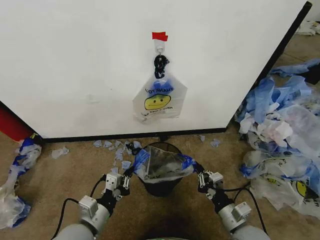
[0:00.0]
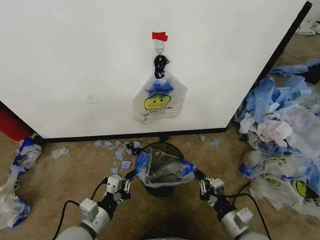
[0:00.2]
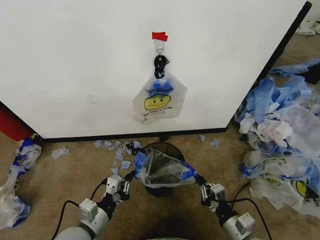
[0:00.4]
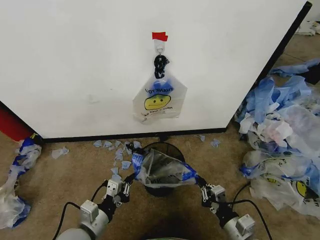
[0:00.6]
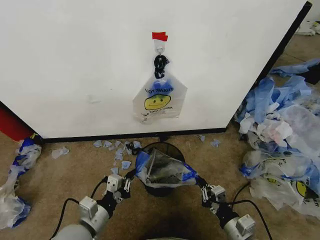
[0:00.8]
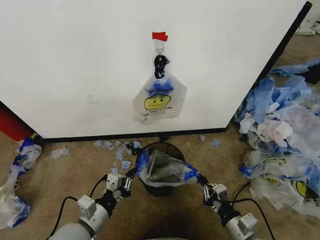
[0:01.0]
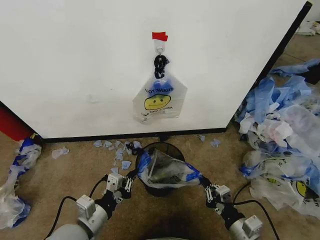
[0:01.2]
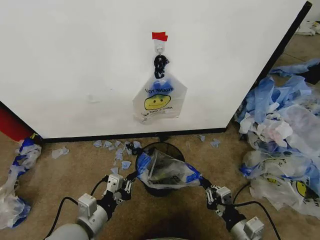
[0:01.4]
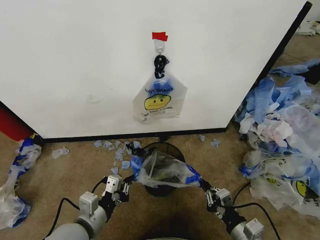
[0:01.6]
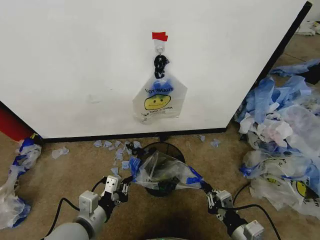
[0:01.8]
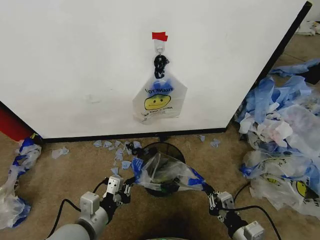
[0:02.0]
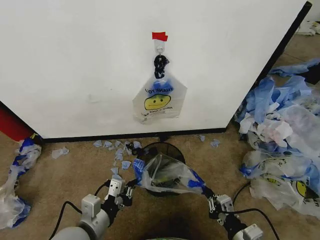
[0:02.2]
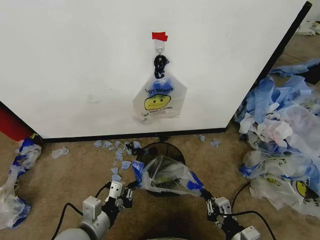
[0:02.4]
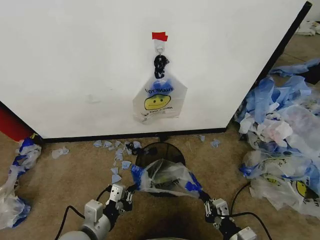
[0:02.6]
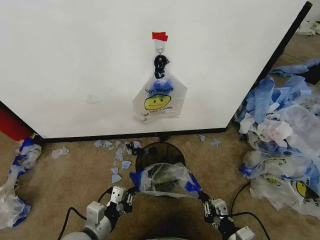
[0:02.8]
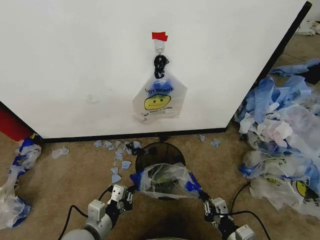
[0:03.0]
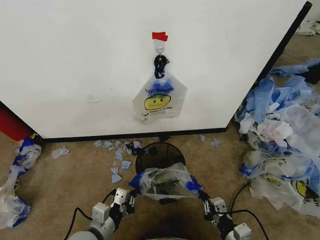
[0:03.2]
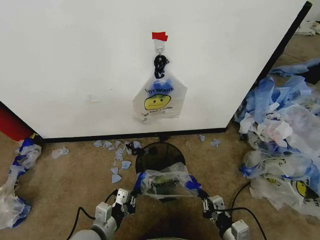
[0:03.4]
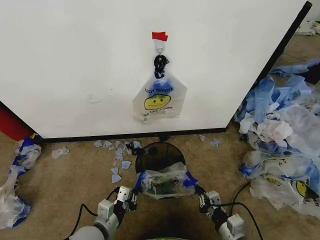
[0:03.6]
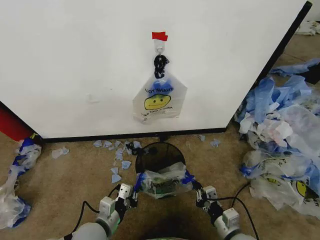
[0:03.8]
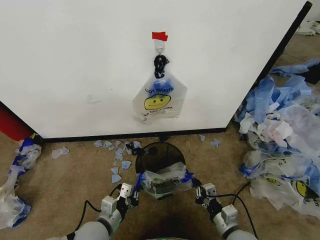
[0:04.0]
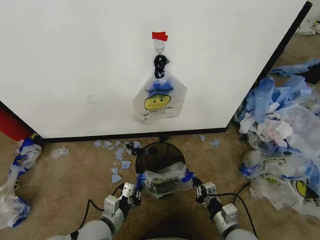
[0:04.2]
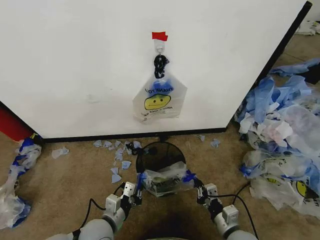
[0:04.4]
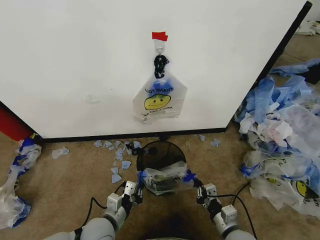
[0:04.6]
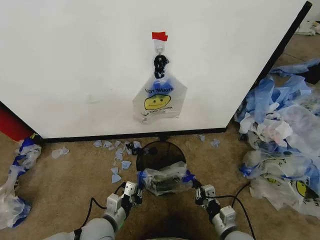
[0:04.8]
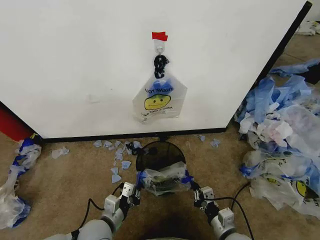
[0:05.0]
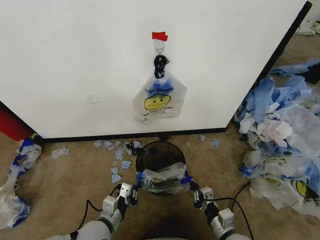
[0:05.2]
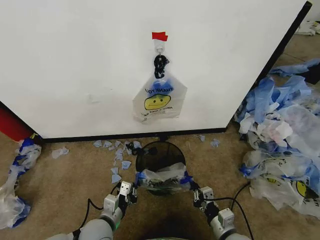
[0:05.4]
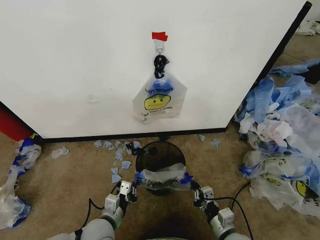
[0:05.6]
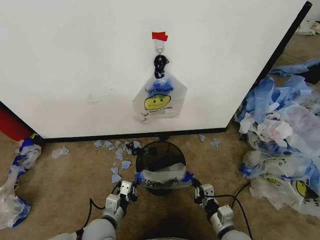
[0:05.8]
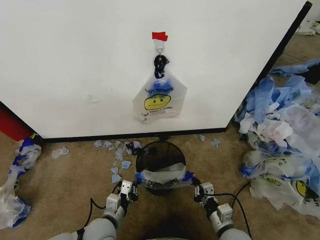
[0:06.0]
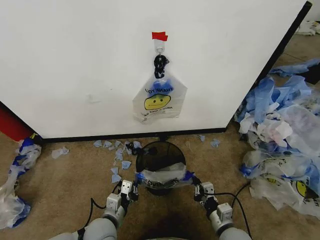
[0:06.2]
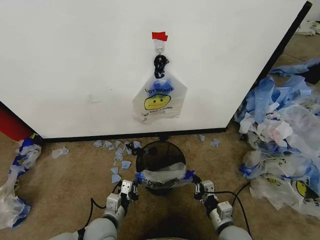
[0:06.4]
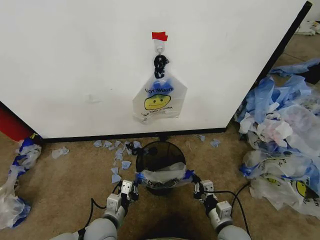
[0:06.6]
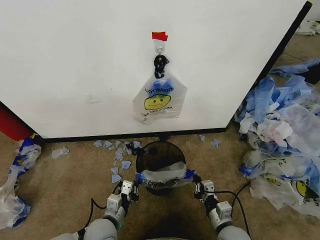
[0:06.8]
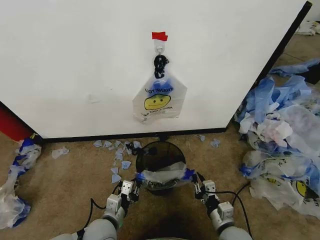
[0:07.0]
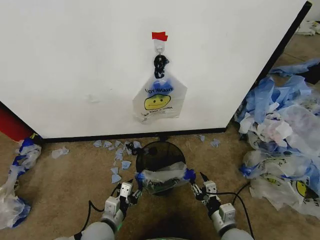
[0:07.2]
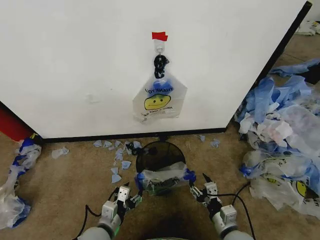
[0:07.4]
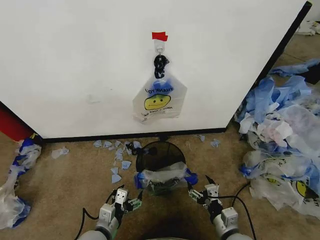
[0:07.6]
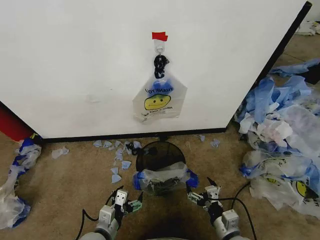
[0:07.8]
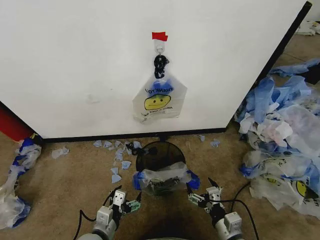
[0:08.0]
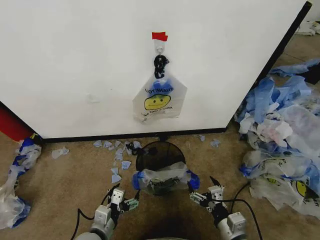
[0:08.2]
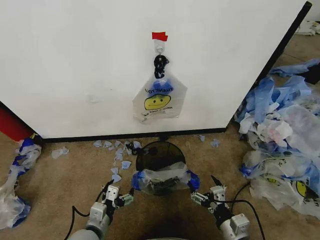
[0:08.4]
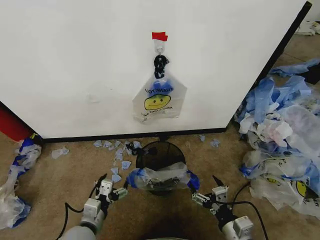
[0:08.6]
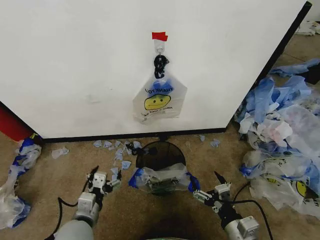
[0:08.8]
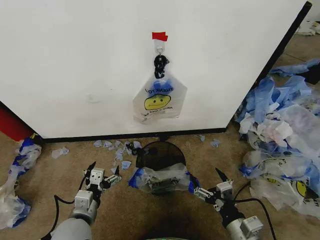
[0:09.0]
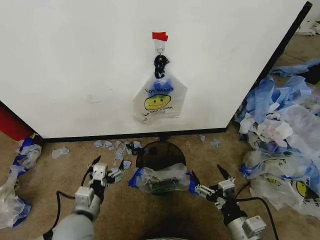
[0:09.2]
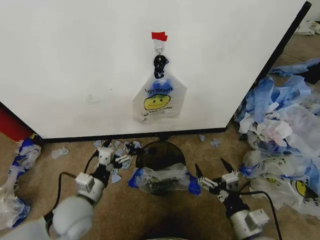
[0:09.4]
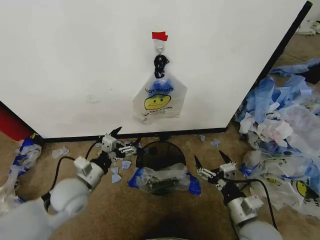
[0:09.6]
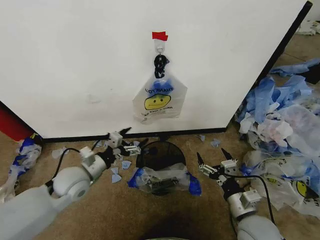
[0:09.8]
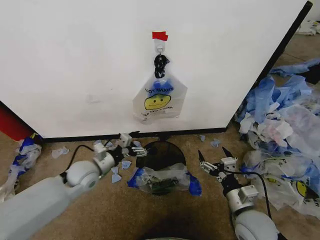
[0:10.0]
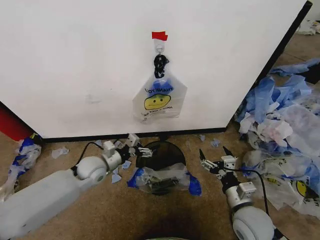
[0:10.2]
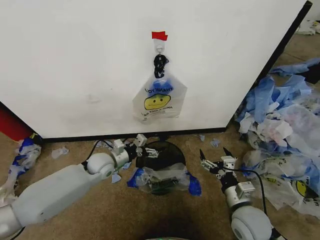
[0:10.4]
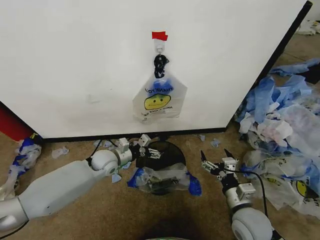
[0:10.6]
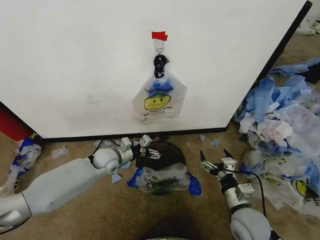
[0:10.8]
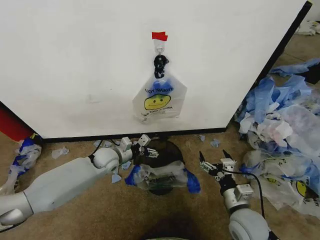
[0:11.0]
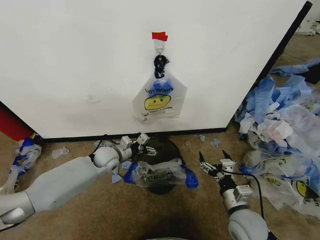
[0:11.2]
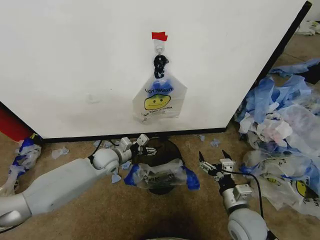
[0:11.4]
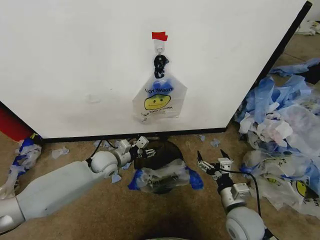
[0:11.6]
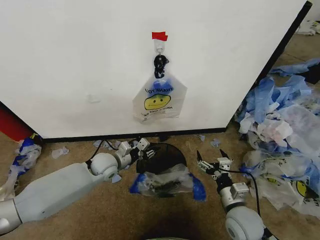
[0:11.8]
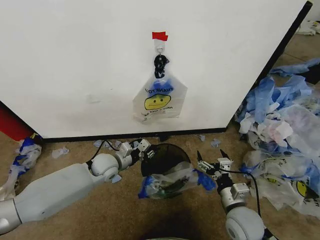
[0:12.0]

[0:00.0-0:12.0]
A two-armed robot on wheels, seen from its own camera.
Task of the whole recording: Pick up the garbage bag from the wall and place it over the trash bin.
0:00.0 to 0:01.6: The right gripper shifts by some 5 cm.
0:01.6 to 0:03.0: The grippers stay close to where they were, moving slightly.
0:03.0 to 0:04.4: The left gripper moves downward, roughly 5 cm; the right gripper travels forward by approximately 5 cm.
0:04.4 to 0:06.0: The grippers make only small movements.
0:06.0 to 0:07.6: The left gripper opens, while the right gripper opens its fingers.
0:07.6 to 0:09.0: Both grippers travel together upward, about 5 cm.
0:09.0 to 0:10.4: The right gripper moves forward, about 10 cm. Meanwhile the left gripper goes some 25 cm forward.
0:10.4 to 0:12.0: The left gripper closes its fingers.

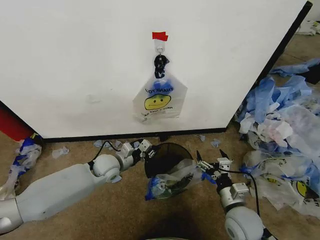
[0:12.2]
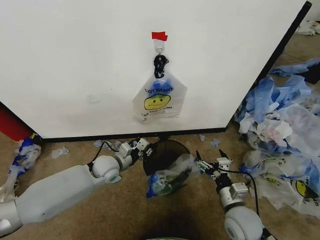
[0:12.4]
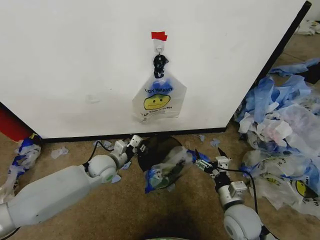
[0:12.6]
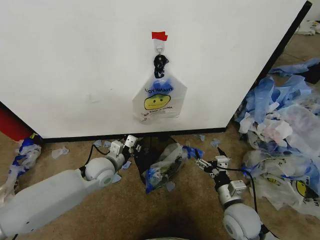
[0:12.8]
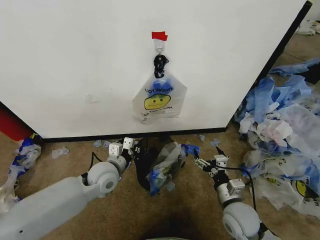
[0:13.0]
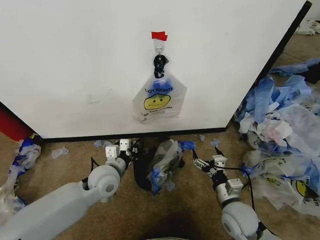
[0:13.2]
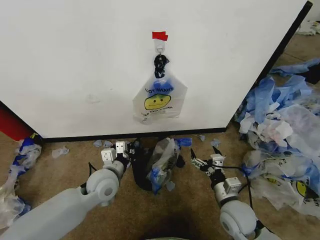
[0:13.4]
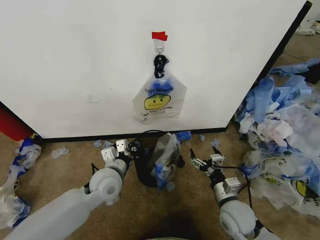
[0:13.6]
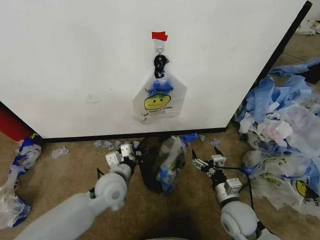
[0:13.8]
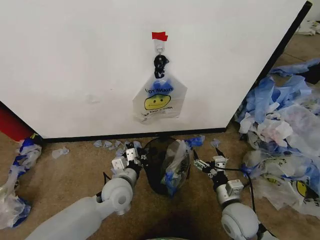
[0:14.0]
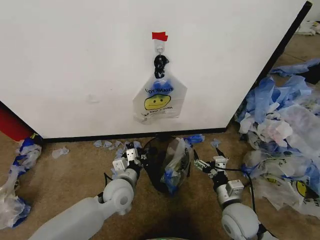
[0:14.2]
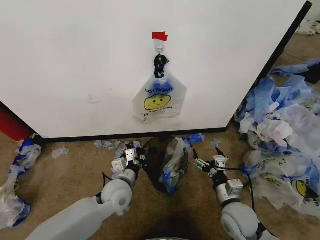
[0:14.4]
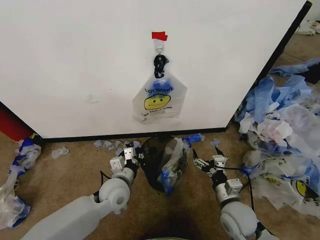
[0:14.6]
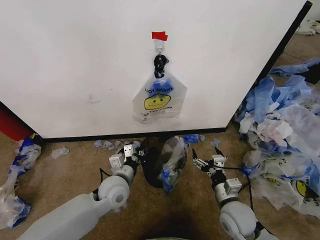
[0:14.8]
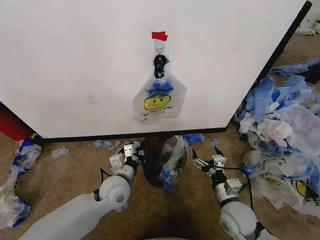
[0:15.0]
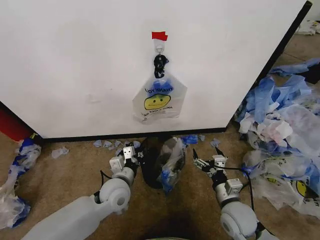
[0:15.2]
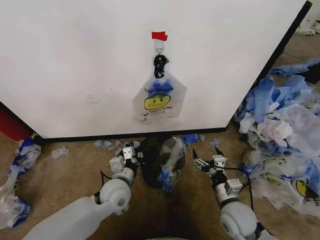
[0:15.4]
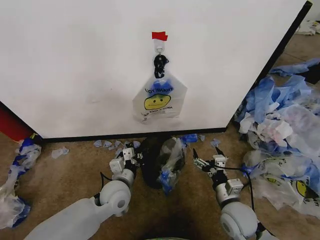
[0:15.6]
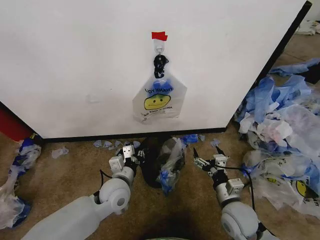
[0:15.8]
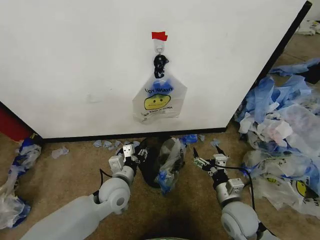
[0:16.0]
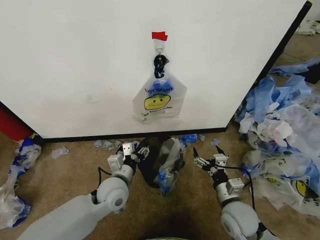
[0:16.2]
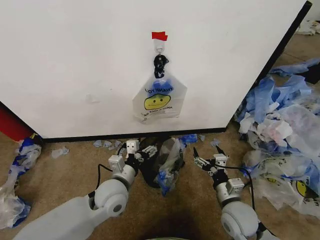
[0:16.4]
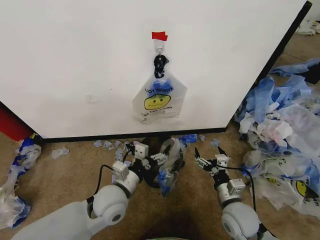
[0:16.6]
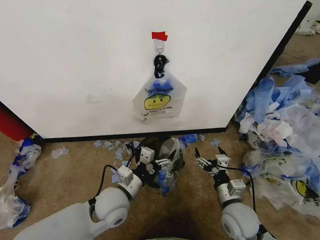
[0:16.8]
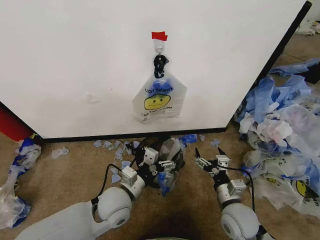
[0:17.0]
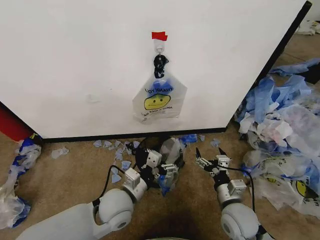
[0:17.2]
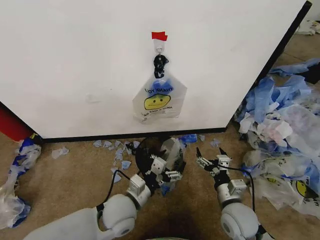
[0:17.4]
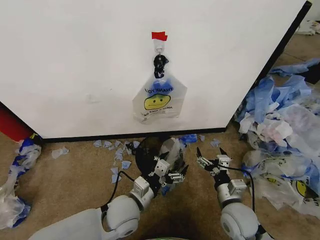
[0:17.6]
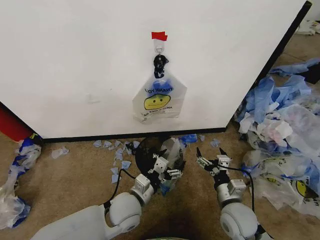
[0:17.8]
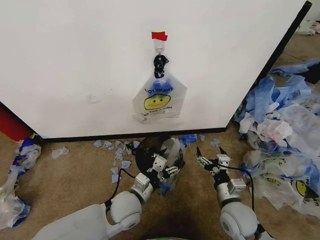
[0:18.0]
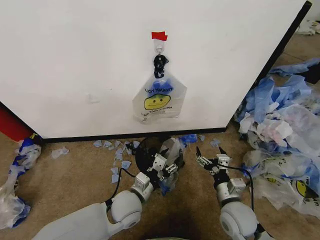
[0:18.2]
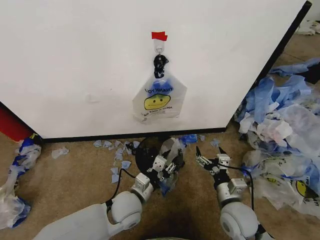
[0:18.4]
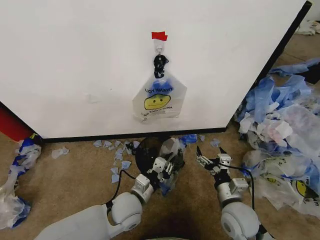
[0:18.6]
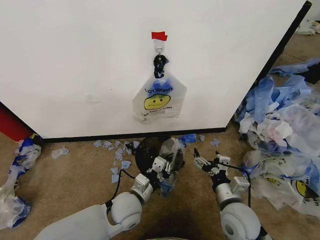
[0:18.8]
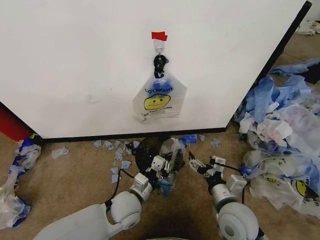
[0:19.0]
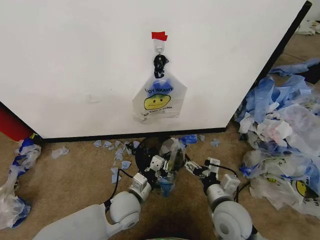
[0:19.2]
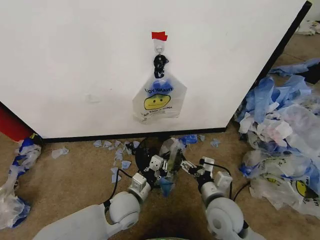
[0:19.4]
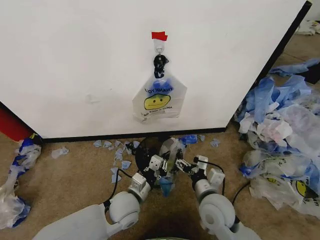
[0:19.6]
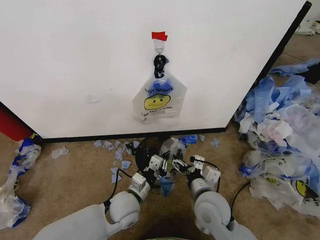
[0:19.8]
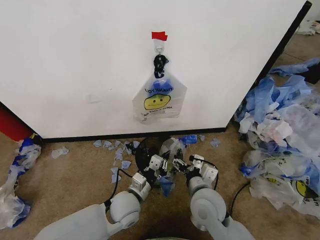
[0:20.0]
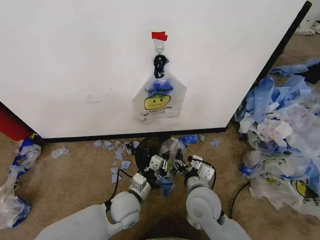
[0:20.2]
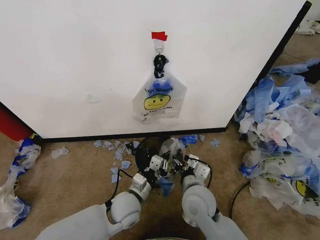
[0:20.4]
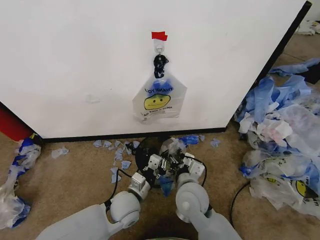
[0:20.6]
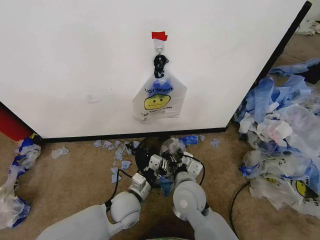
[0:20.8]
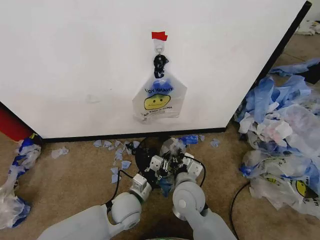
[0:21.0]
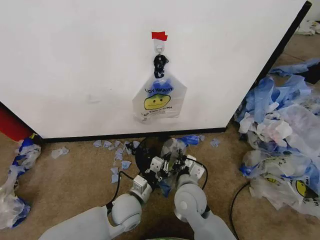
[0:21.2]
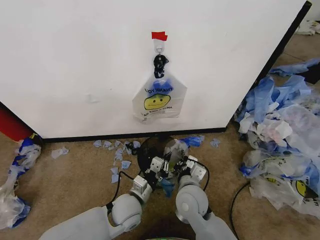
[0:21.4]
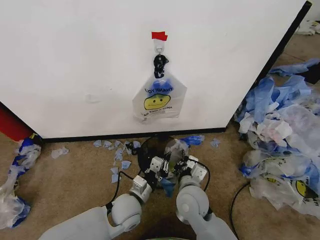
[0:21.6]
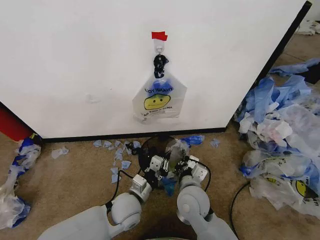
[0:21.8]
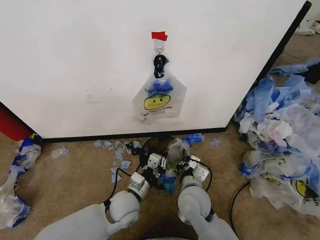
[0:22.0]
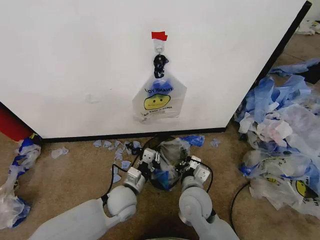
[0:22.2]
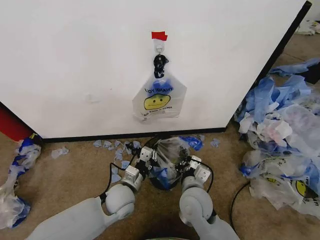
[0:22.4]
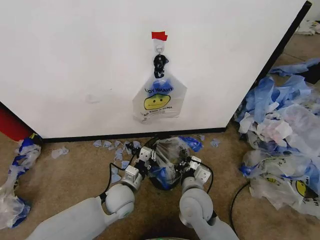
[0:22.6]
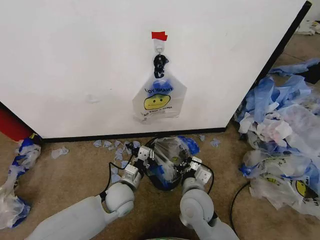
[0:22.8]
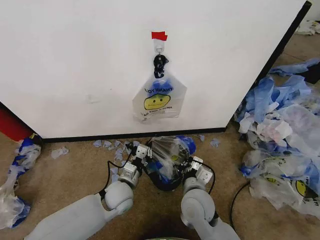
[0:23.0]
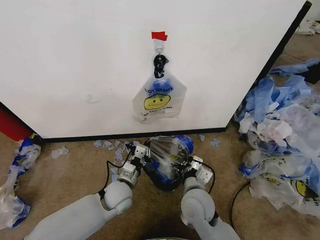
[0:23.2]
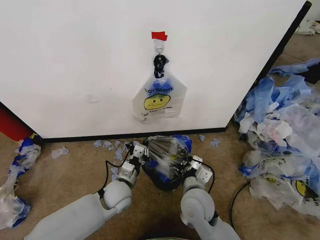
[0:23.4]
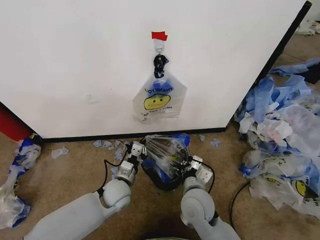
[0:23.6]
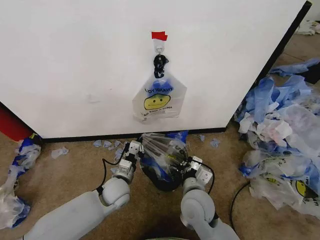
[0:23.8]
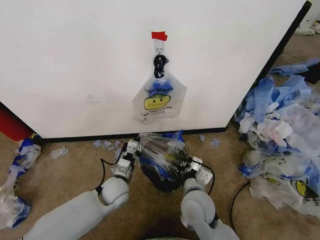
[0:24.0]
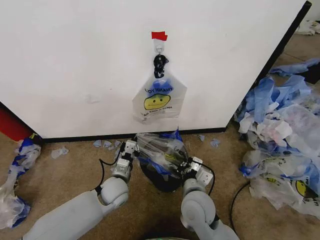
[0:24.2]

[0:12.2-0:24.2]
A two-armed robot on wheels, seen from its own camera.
Task of the whole recording: Pick up the garbage bag from the wall and place it over the trash bin.
0:12.2 to 0:13.8: The left gripper travels backward by approximately 10 cm.
0:13.8 to 0:15.2: The grippers stay close to where they were, moving slightly.
0:15.2 to 0:16.6: The left gripper opens up.
0:16.6 to 0:18.2: The left gripper moves downward, about 5 cm, and closes up.
0:18.2 to 0:19.8: The right gripper moves to the left and upward, some 10 cm, while the left gripper closes its fingers.
0:19.8 to 0:21.2: The right gripper shifts approximately 5 cm to the left, and closes its fingers.
0:21.2 to 0:22.6: There are only small adjustments of the grippers.
0:22.6 to 0:24.2: The grippers move only a little.
